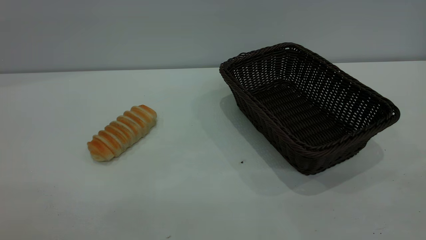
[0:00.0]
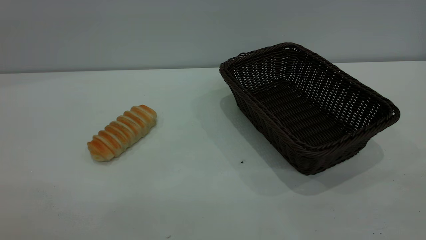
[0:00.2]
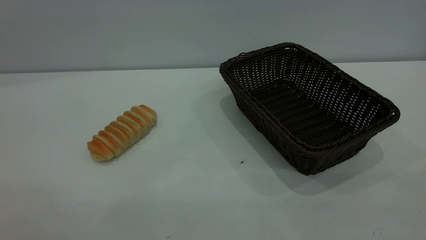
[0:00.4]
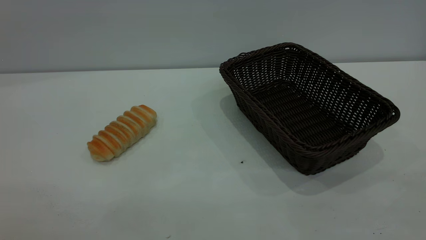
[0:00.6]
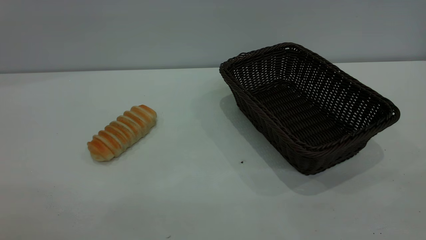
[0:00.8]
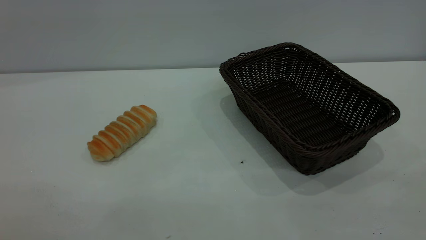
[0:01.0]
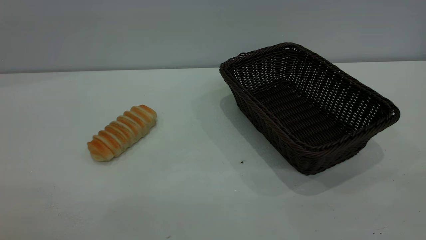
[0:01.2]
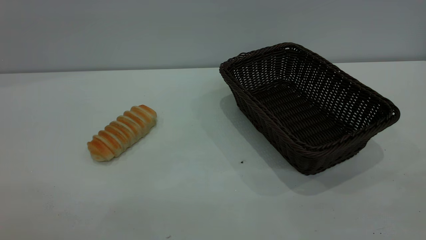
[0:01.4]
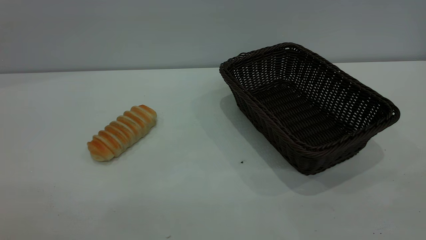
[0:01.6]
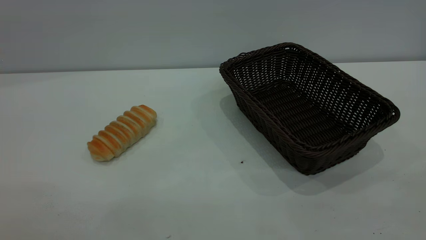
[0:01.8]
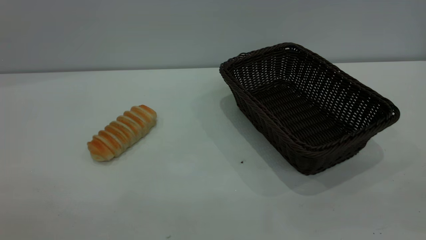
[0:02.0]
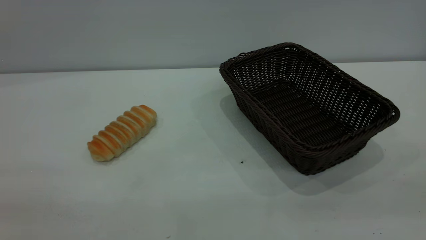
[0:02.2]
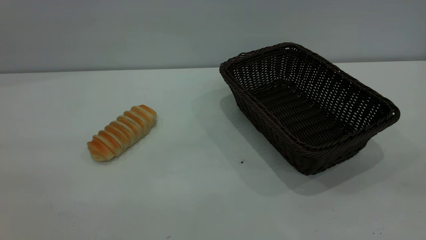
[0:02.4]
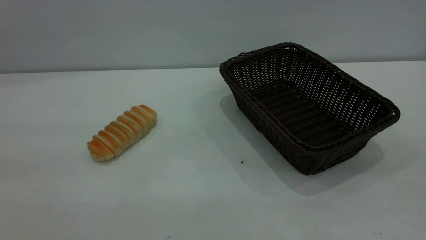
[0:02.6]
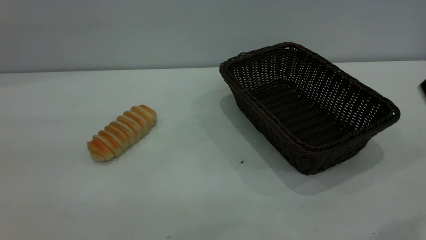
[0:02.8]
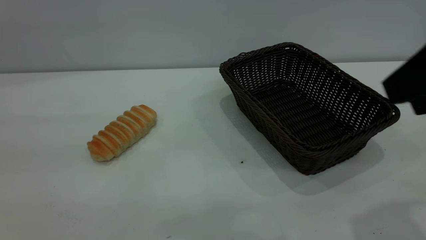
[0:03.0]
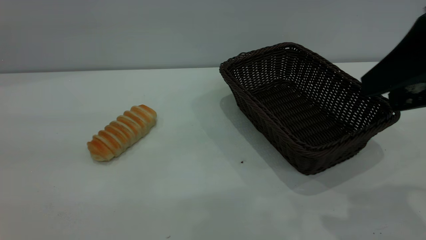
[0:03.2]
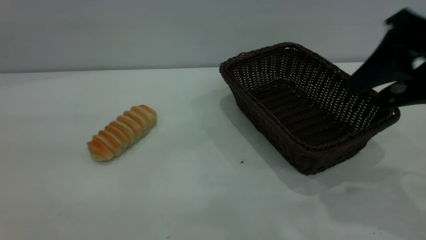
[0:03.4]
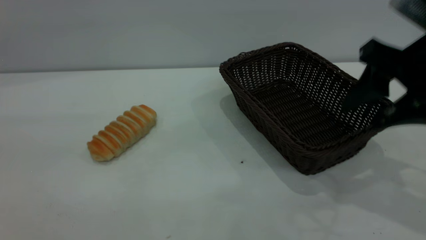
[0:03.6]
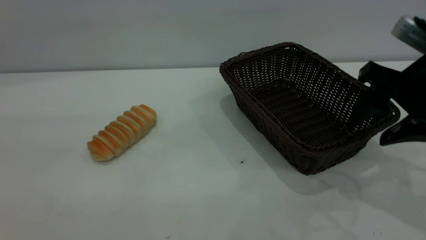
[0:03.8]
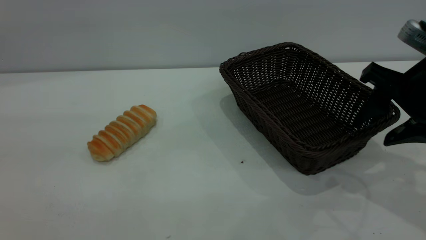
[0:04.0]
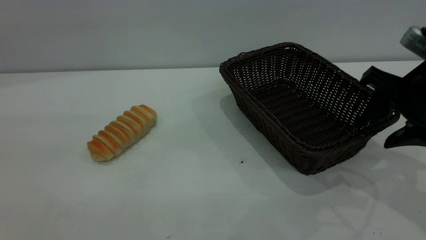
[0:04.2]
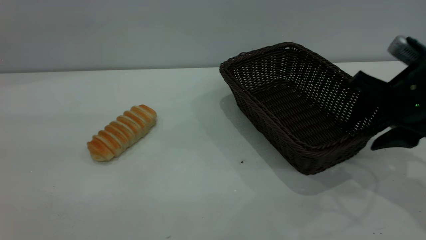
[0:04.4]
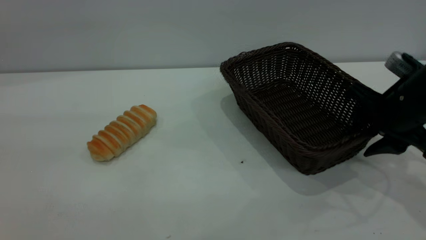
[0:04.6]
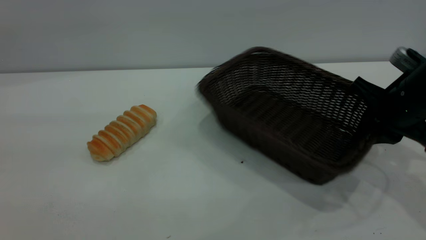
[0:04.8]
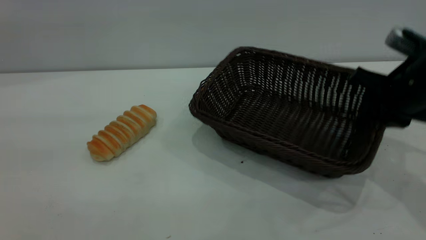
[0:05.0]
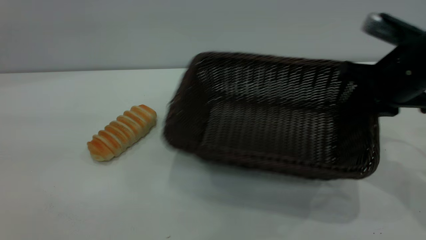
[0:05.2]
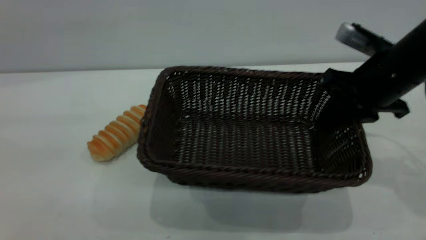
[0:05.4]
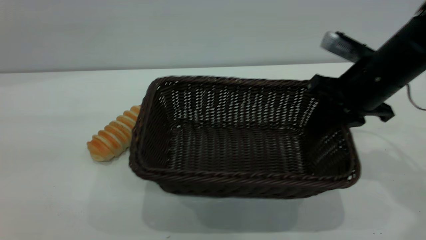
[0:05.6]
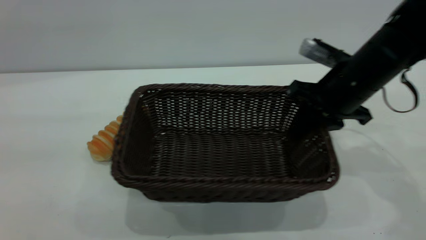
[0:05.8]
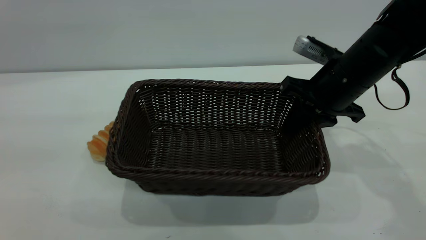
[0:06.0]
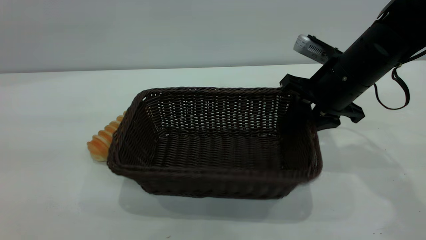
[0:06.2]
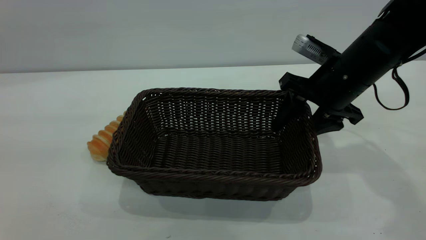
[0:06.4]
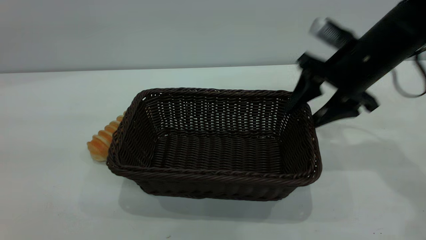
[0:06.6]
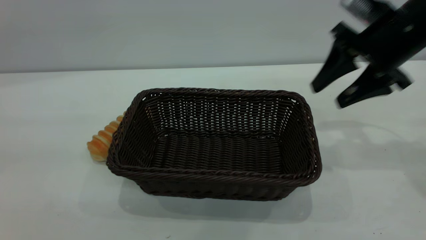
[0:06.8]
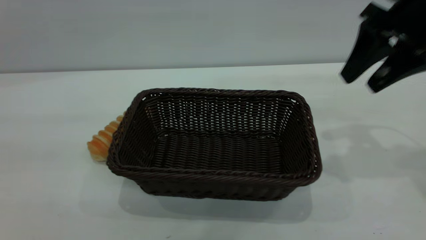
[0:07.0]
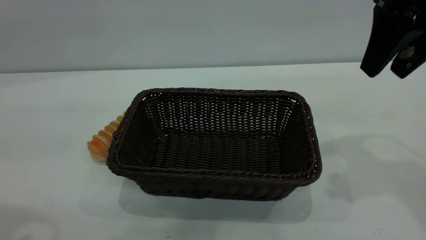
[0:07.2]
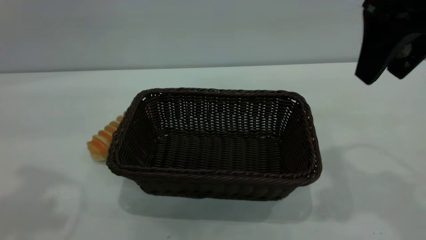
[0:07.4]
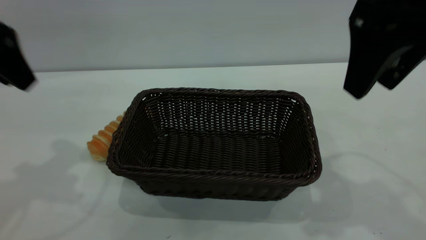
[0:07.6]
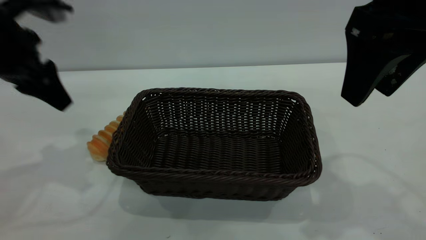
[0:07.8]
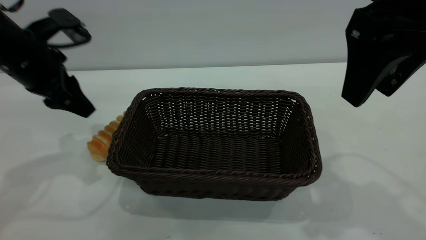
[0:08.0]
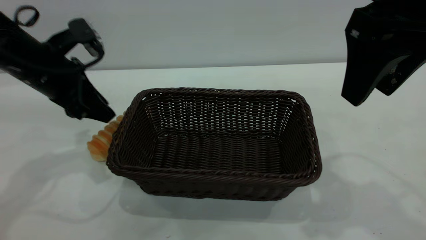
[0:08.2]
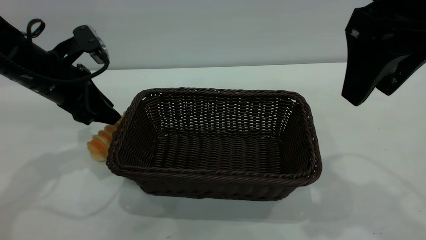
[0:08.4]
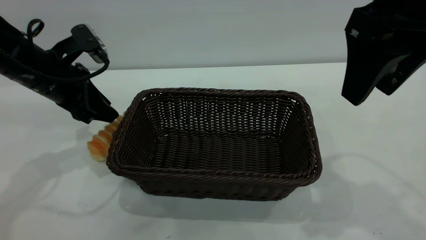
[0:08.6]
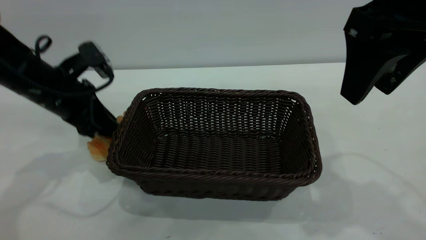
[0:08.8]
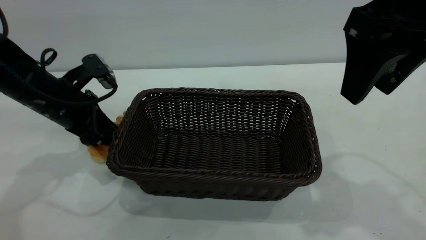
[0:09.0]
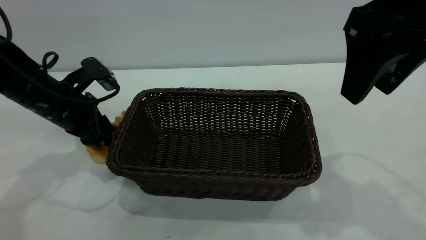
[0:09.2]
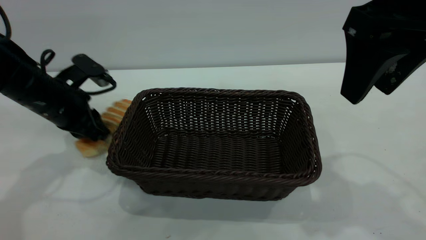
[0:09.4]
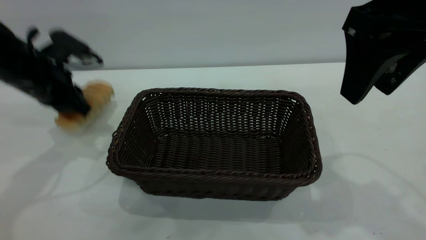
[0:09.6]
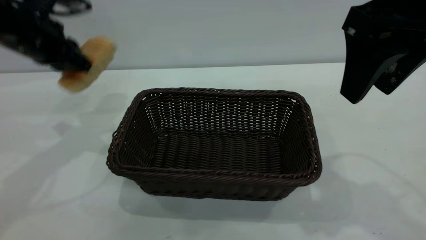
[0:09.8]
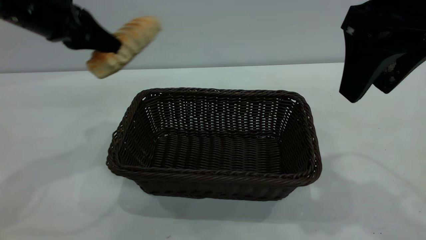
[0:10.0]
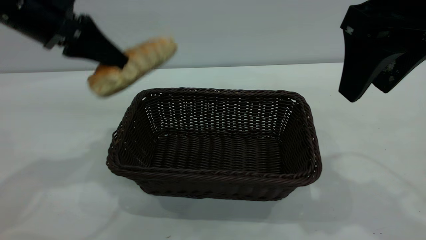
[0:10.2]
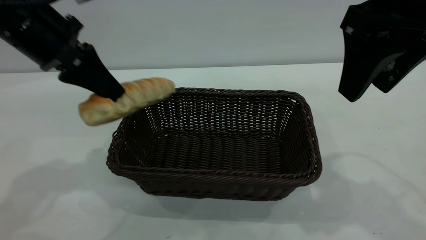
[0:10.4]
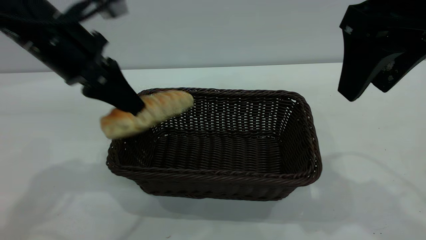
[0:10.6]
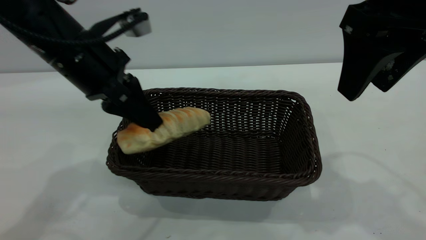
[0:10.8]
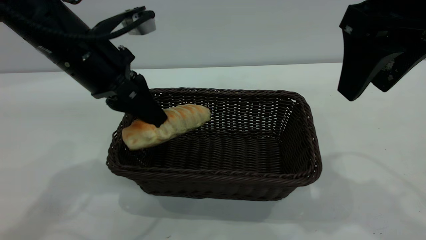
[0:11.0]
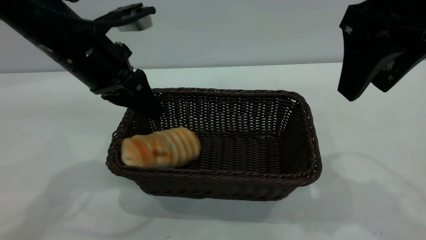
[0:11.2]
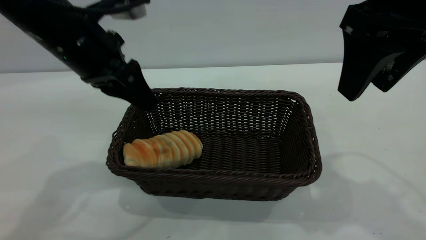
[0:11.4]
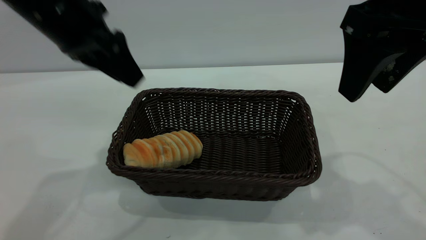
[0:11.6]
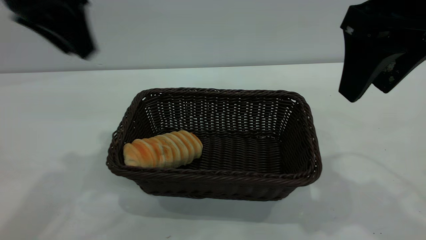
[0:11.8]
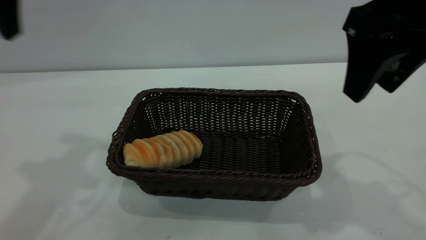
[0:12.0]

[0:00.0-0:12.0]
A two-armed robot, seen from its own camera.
Task of the whole recording: One hand grasps the black basket and places it in the middle of the table, while the other hand picks up the long bread and puts it into the black basket.
Step, 0:00.0 to 0:06.6: Move the basket to the center of view.
Step, 0:09.8 to 0:11.6: place the bread into the basket.
0:00.0 to 0:01.6: Neither gripper changes place.
0:01.6 to 0:03.0: The right gripper goes approximately 20 cm forward.
0:03.0 to 0:04.4: The right gripper travels downward and forward by roughly 20 cm.
0:04.4 to 0:06.0: The right gripper shifts some 10 cm to the left and forward, and closes up.
0:06.0 to 0:07.6: The left gripper heads forward and downward, covering some 25 cm. Meanwhile the right gripper moves upward and backward, about 20 cm, and opens up.
0:07.6 to 0:09.0: The left gripper is displaced downward by about 20 cm.
0:09.0 to 0:10.4: The left gripper travels upward by roughly 15 cm, and closes up.
0:10.4 to 0:12.0: The left gripper is displaced upward by roughly 10 cm, and opens its fingers.

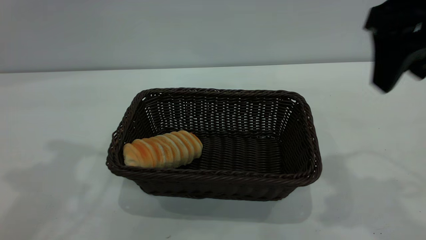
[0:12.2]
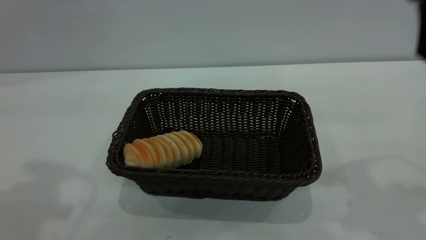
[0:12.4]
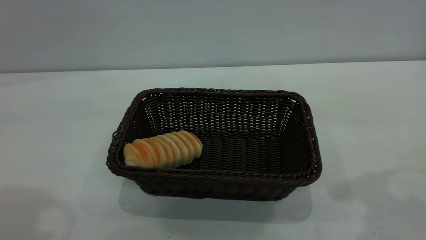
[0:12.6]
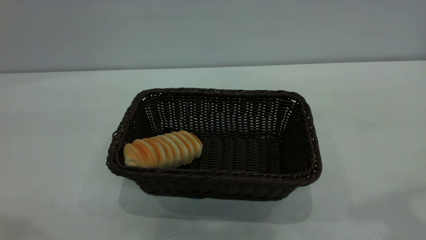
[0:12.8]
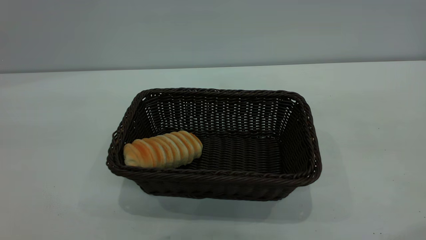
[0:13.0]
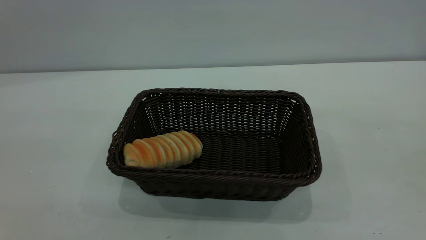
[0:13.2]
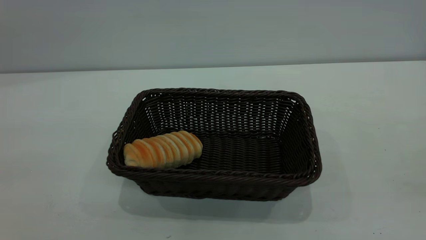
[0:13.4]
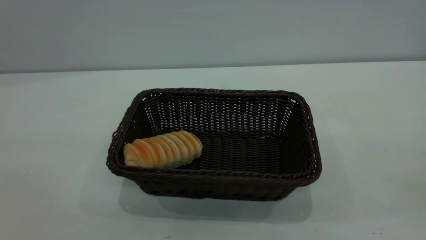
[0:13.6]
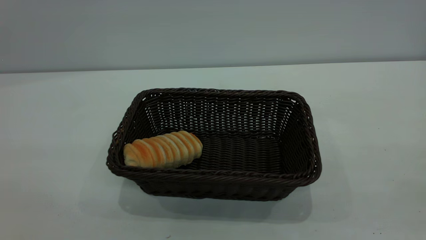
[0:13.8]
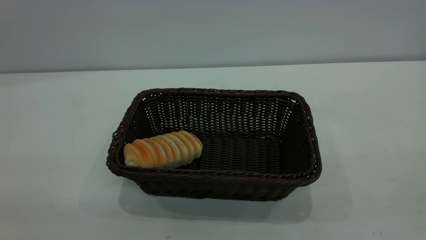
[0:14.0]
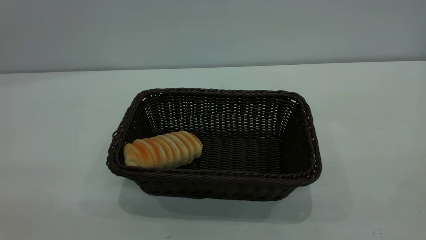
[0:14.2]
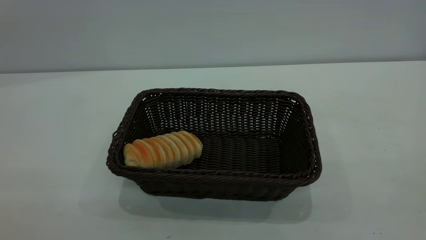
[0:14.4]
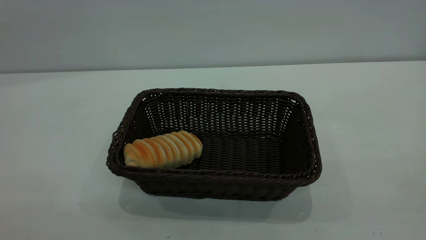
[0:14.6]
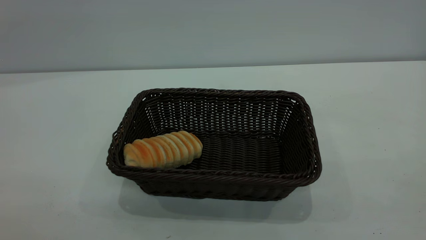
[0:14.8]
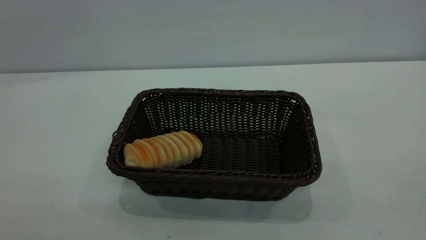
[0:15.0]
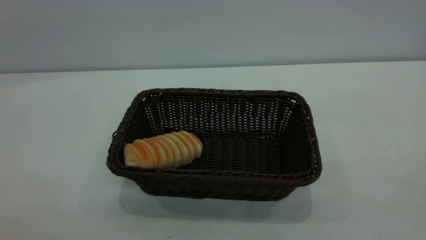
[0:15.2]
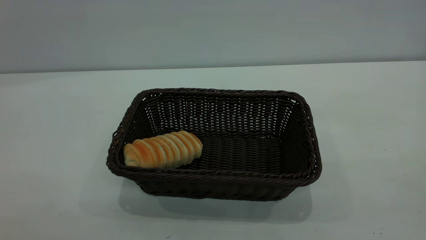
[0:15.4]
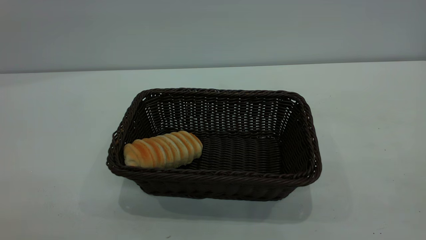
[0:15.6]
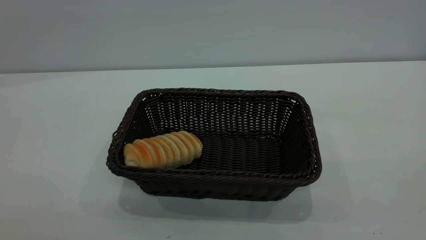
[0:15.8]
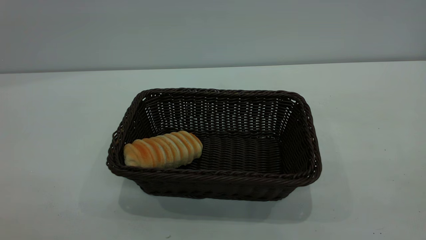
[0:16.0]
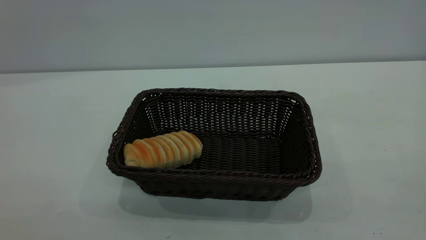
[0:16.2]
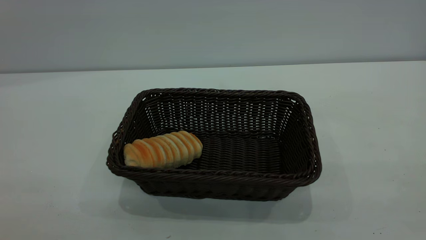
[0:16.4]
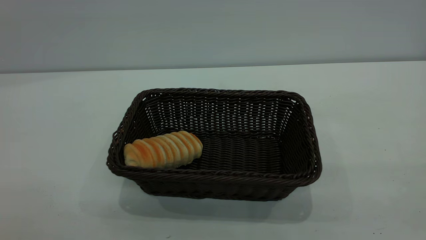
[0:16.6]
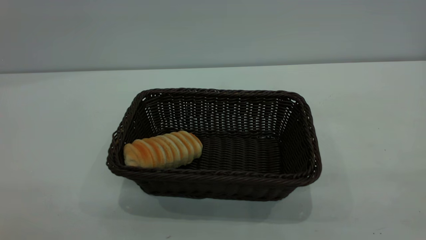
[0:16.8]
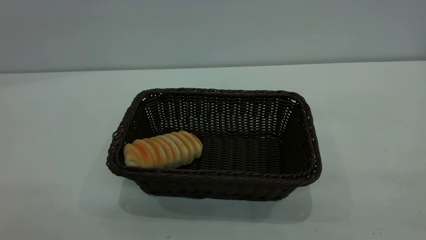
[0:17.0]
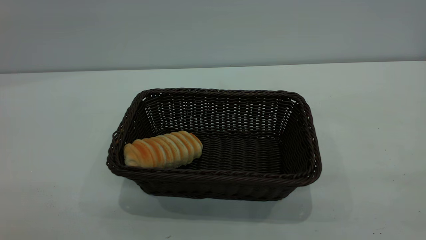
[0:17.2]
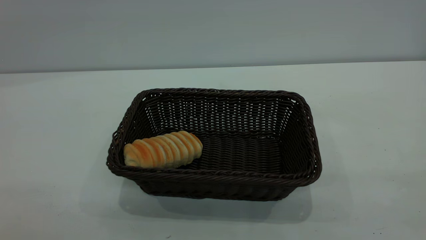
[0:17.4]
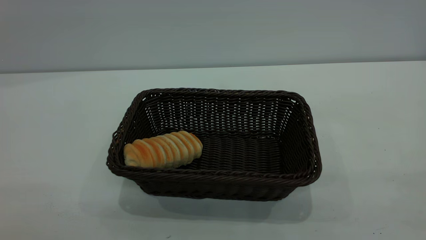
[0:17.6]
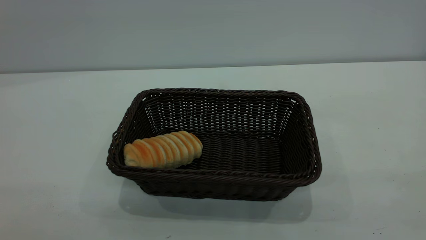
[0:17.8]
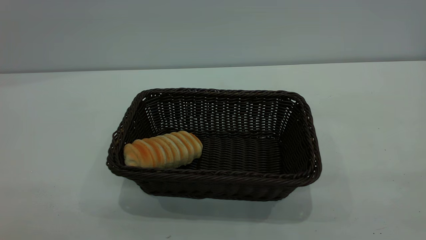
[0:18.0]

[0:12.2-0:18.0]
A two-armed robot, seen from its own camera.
Task of the whole recording: One hand grasps the black basket and places it in the middle of the table, while the other hand picks up the long bread and puts it into the black basket.
0:12.2 to 0:13.6: The right gripper is displaced backward by roughly 25 cm.
0:16.6 to 0:18.0: The two grippers keep their place.
